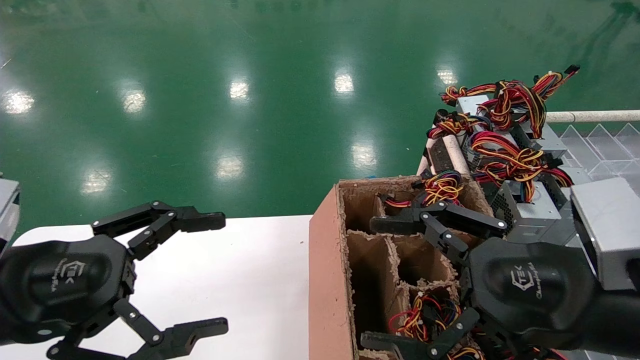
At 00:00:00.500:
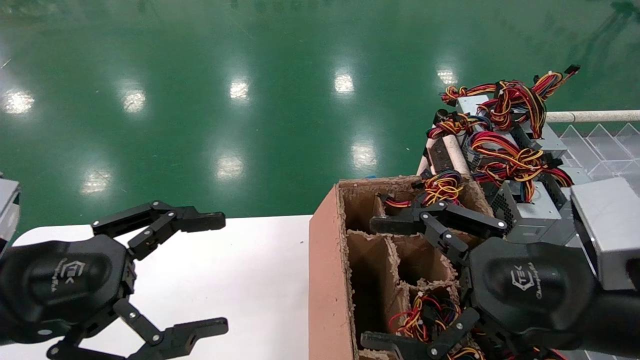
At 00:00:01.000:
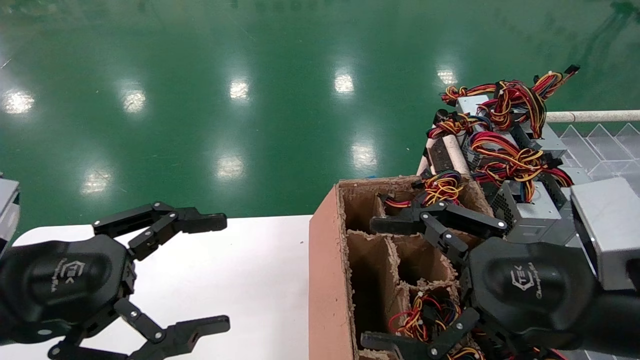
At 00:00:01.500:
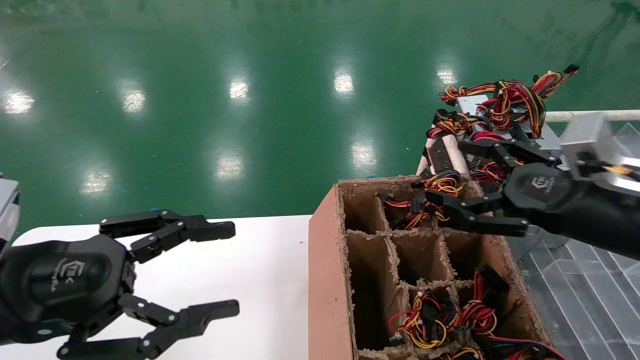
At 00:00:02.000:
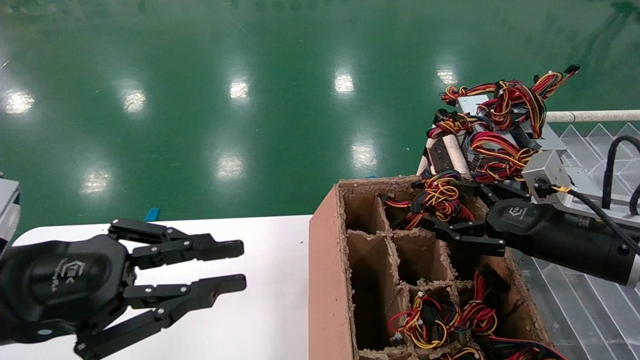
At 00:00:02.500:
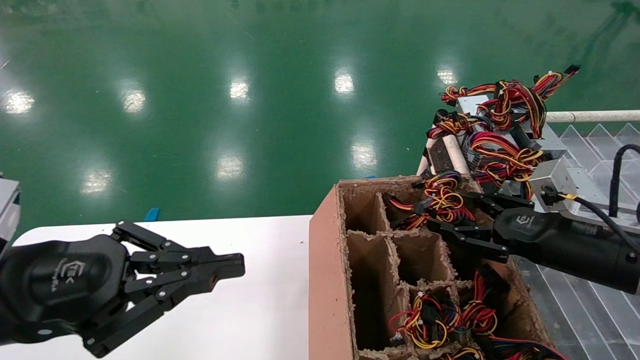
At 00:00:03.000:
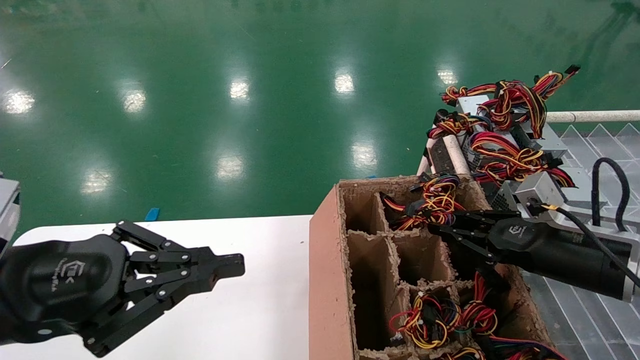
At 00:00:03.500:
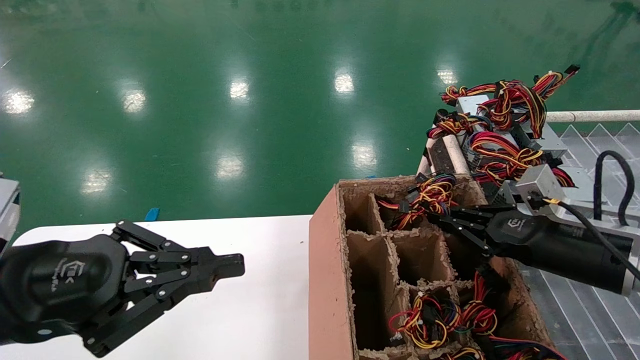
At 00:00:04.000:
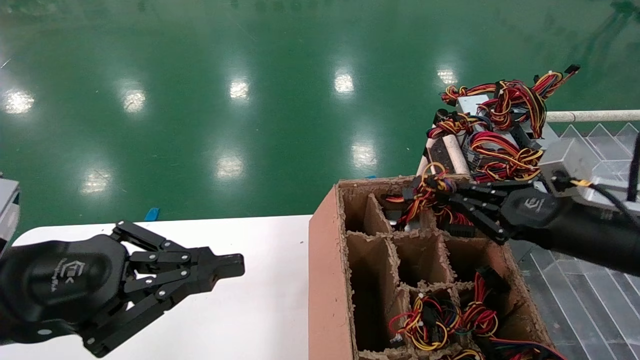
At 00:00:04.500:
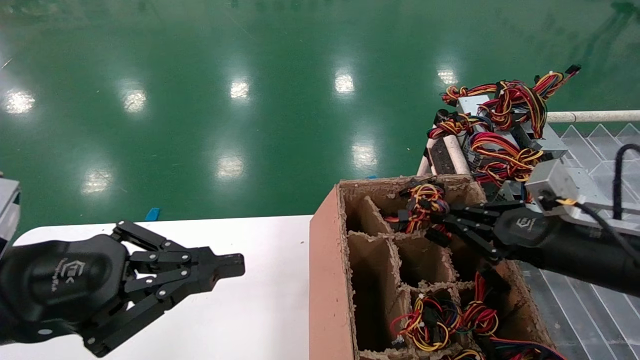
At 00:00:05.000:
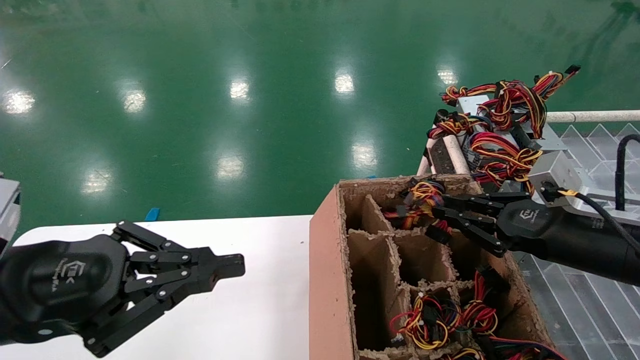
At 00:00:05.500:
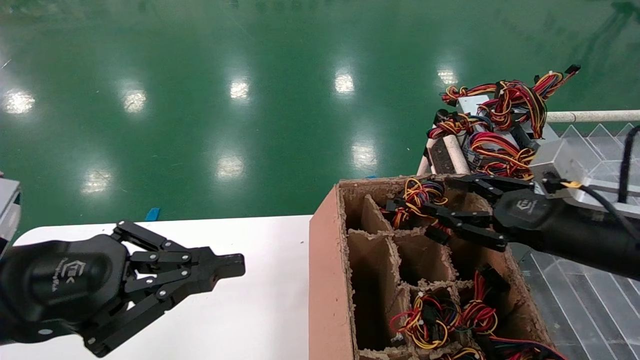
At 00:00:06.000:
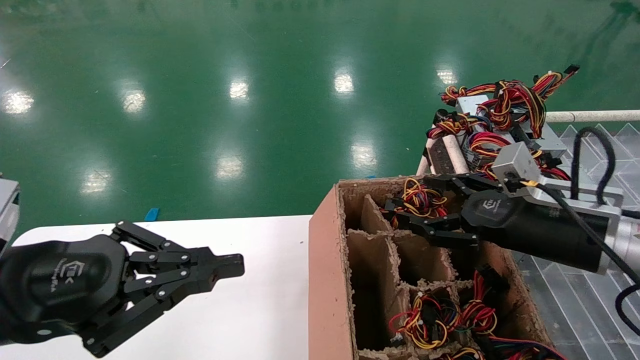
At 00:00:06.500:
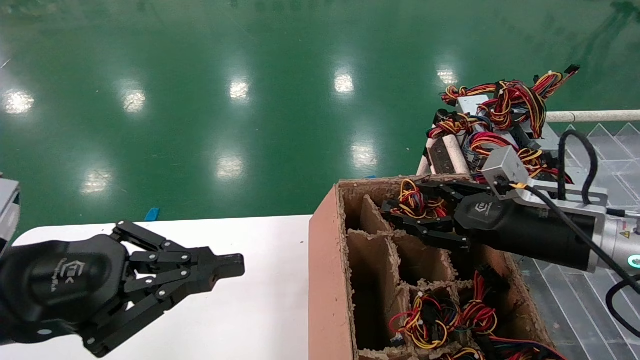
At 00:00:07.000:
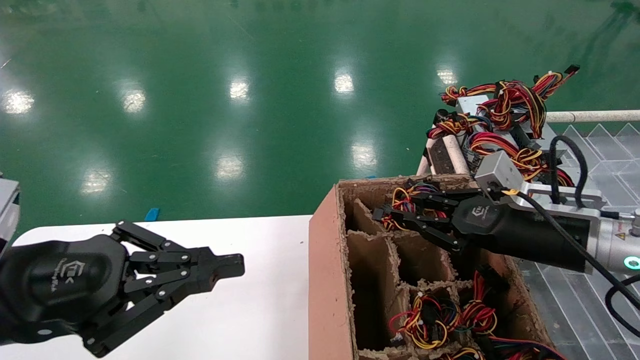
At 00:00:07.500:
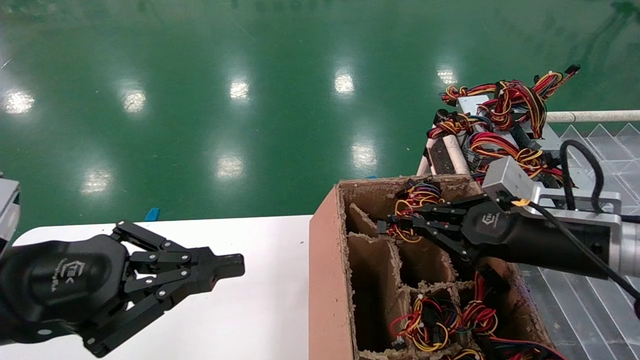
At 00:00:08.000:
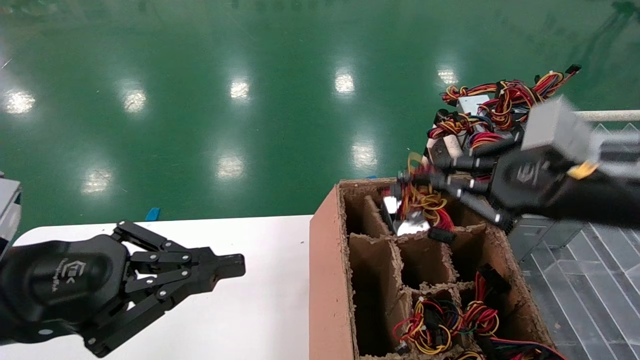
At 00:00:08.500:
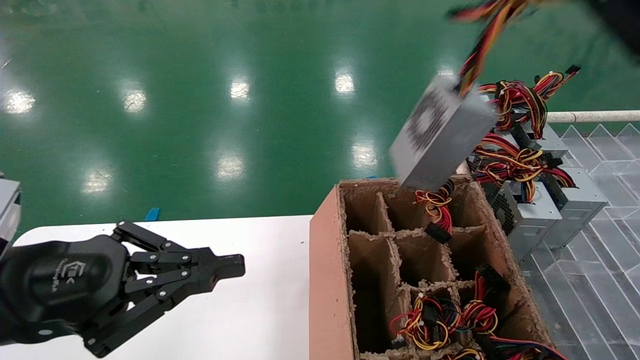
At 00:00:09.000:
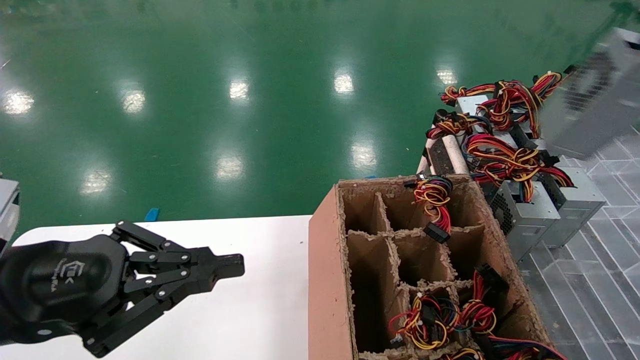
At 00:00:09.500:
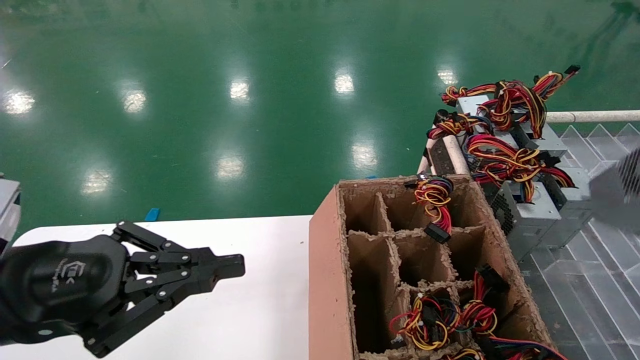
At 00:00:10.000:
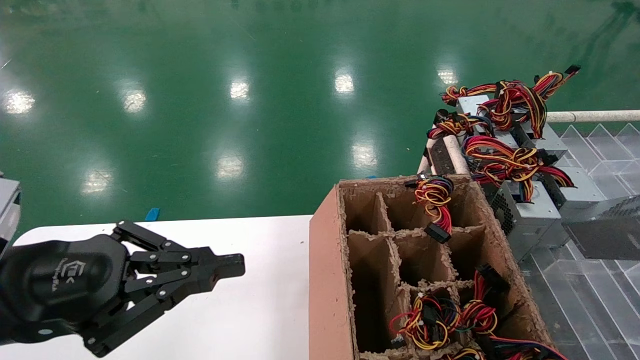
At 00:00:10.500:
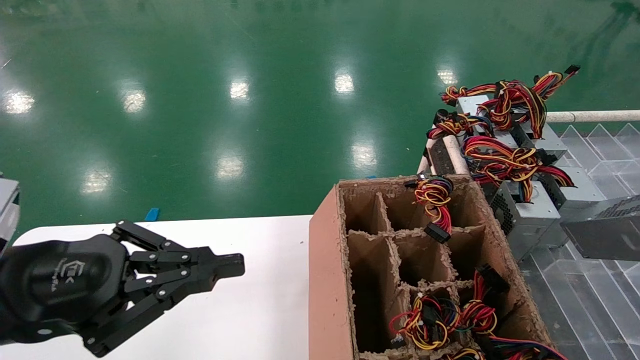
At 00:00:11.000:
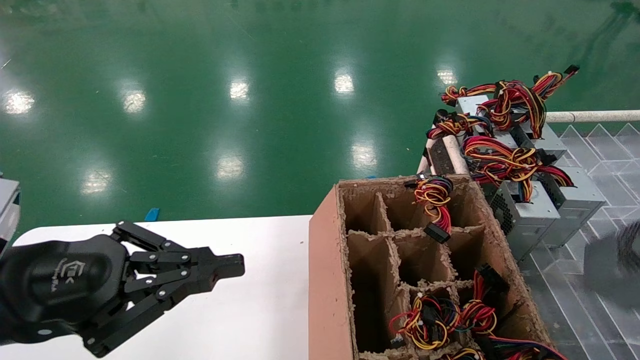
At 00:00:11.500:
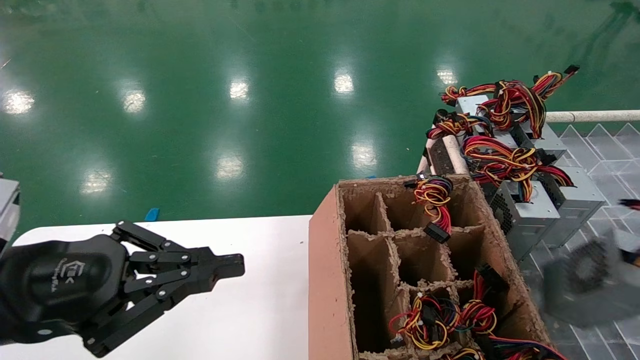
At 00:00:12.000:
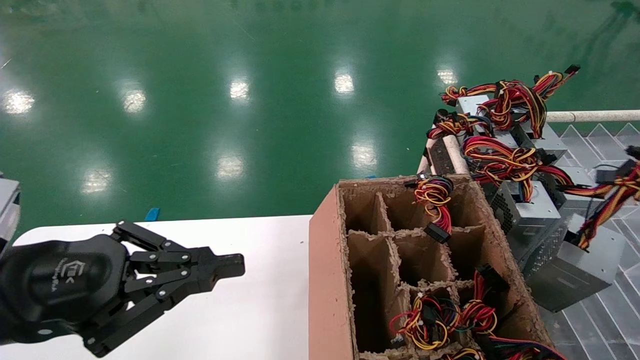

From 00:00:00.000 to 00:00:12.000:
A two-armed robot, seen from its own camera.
Step, from 00:00:01.500 to 00:00:07.000: Grab the main unit power supply from the containment box.
From 00:00:00.000 to 00:00:02.000: The left gripper closes; the right gripper travels forward and to the right by roughly 15 cm.
From 00:00:02.000 to 00:00:04.000: The right gripper closes.
From 00:00:04.000 to 00:00:06.000: The right gripper opens.
From 00:00:06.000 to 00:00:08.000: The right gripper moves upward and backward, roughly 10 cm, and closes.
From 00:00:08.000 to 00:00:10.000: The right gripper shifts some 25 cm to the right and backward.
From 00:00:10.000 to 00:00:12.000: The right gripper changes place by about 5 cm.

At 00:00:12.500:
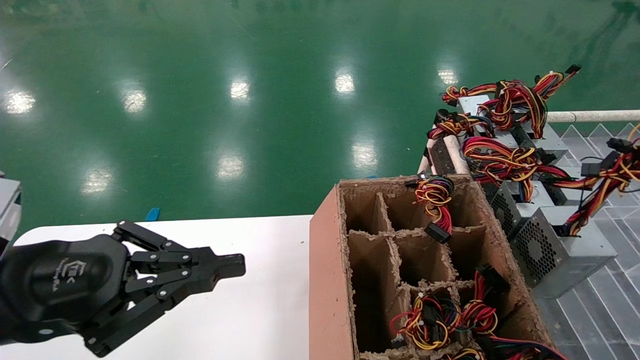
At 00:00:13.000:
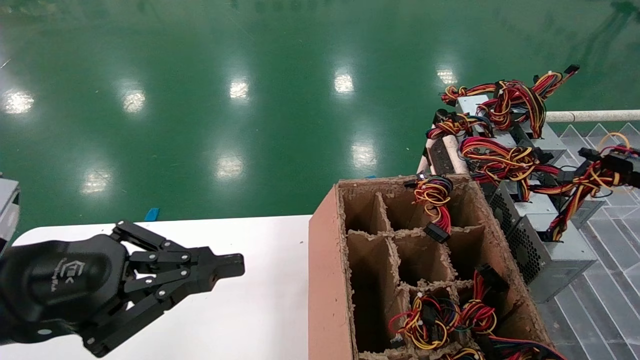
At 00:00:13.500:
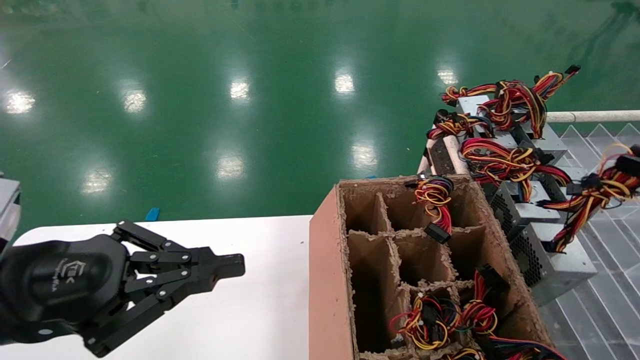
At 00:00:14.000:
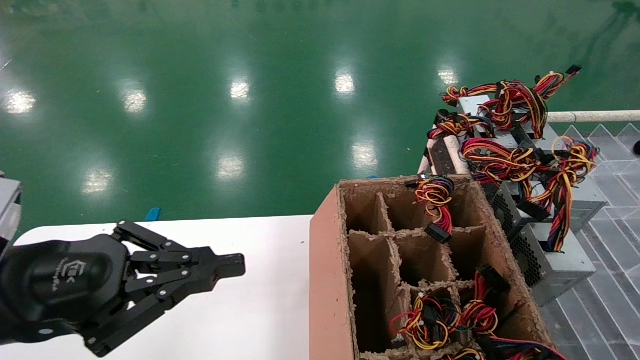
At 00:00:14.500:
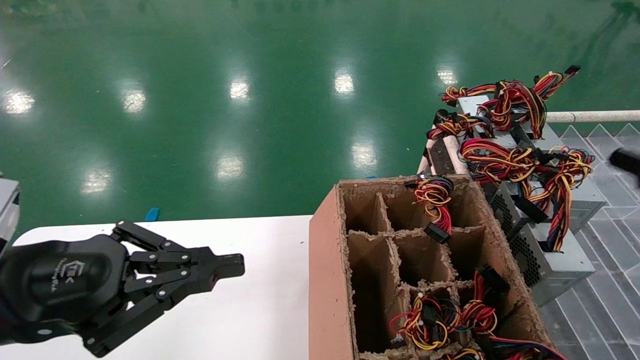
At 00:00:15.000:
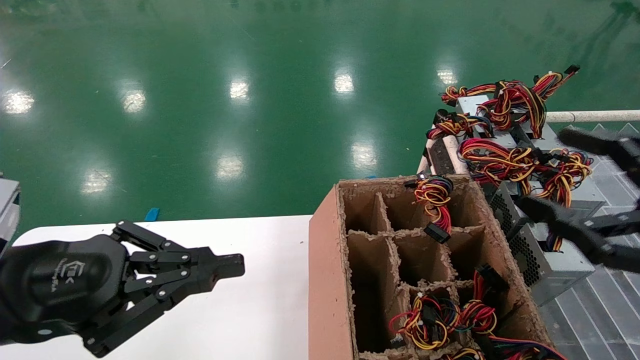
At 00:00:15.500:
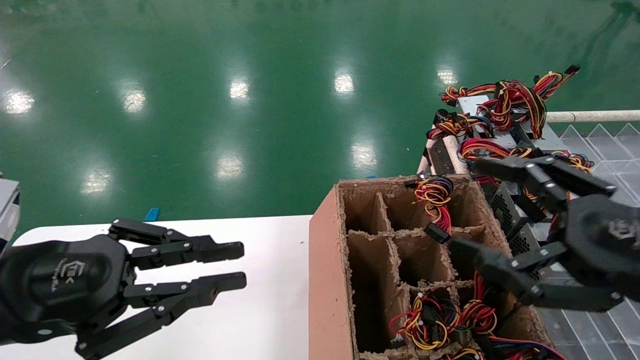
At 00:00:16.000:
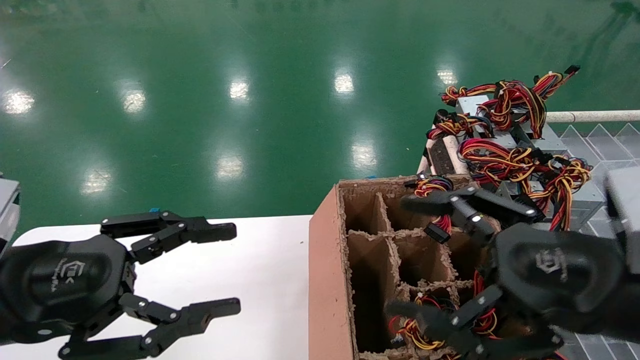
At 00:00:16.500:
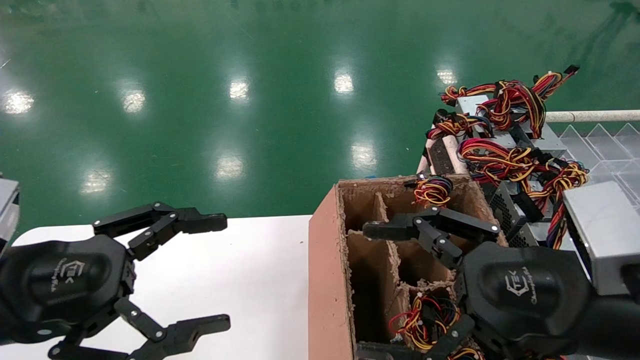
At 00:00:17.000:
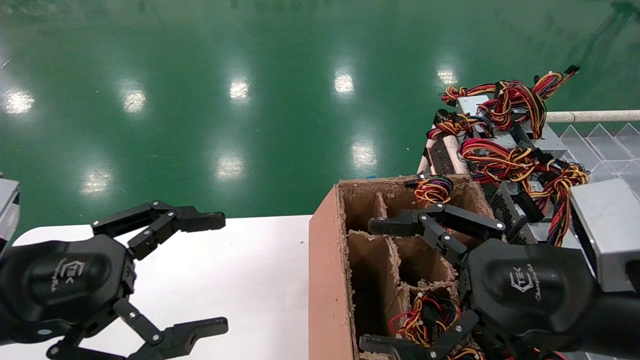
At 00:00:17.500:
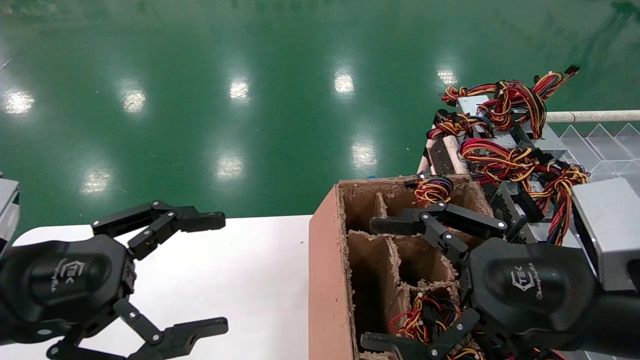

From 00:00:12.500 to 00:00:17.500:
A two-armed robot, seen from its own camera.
From 00:00:12.500 to 00:00:15.000: The right gripper goes some 5 cm to the left, and opens its fingers.
From 00:00:15.000 to 00:00:17.500: The right gripper is displaced to the left by roughly 15 cm. Meanwhile the left gripper opens its fingers.
